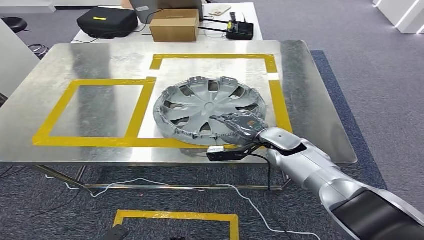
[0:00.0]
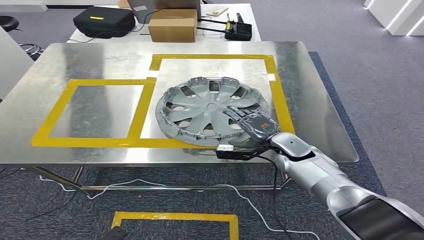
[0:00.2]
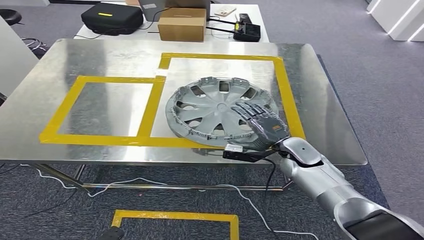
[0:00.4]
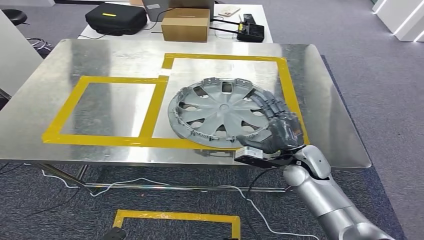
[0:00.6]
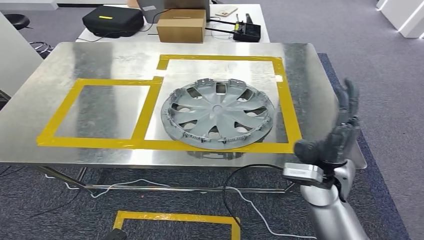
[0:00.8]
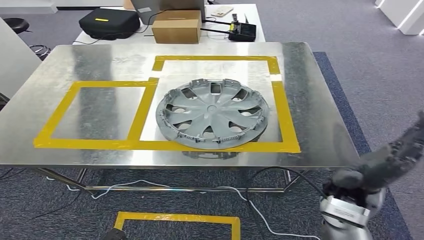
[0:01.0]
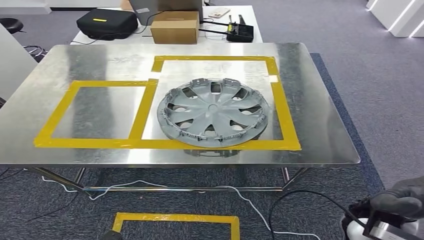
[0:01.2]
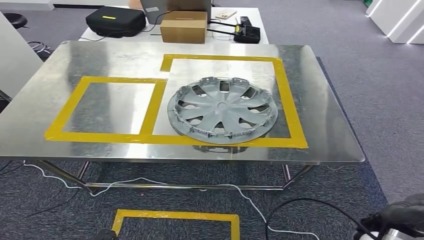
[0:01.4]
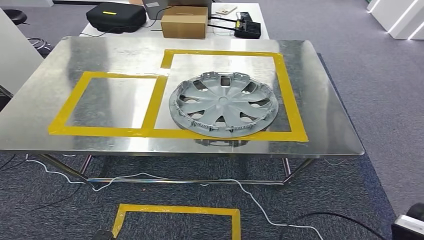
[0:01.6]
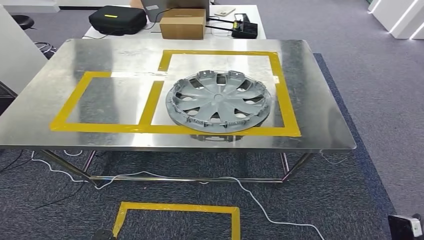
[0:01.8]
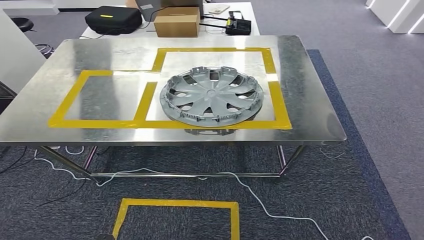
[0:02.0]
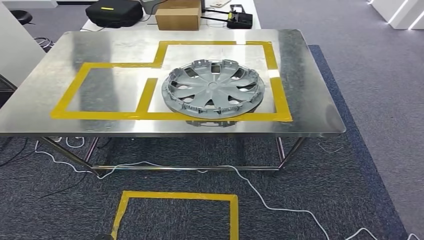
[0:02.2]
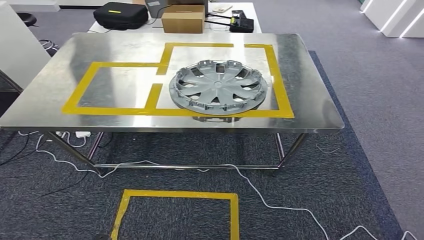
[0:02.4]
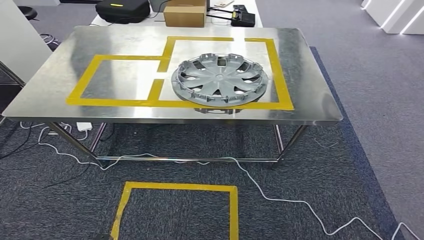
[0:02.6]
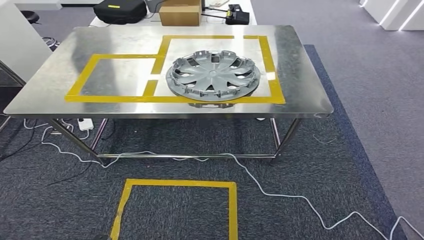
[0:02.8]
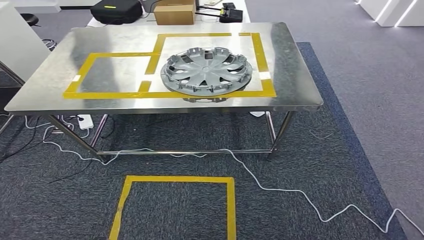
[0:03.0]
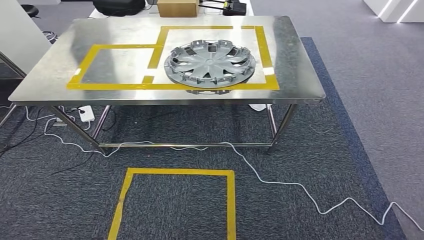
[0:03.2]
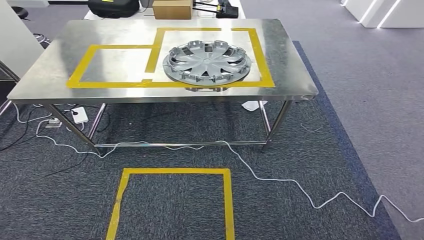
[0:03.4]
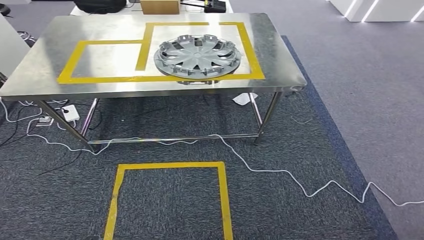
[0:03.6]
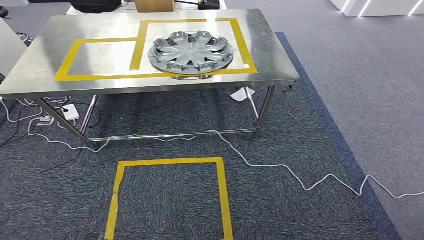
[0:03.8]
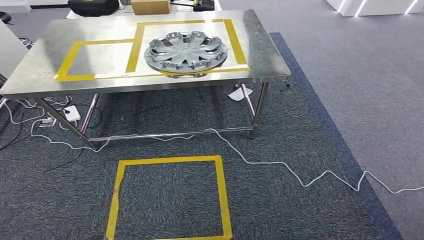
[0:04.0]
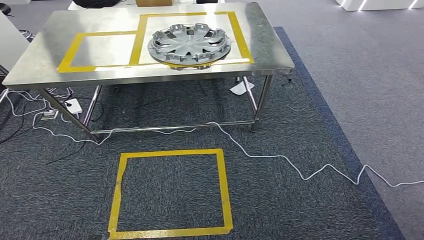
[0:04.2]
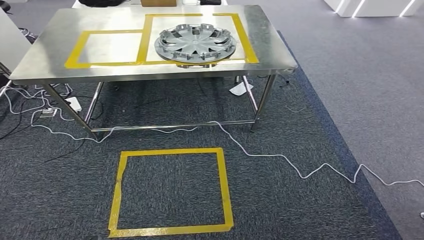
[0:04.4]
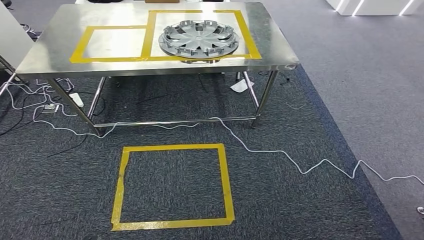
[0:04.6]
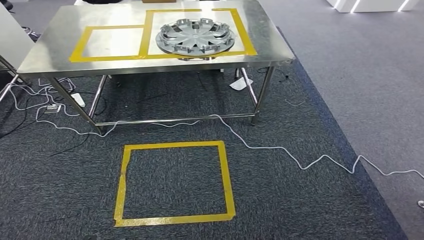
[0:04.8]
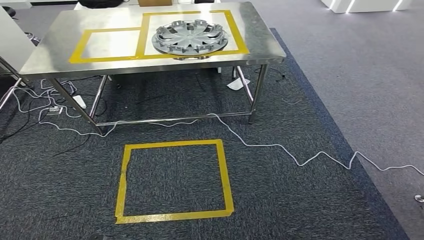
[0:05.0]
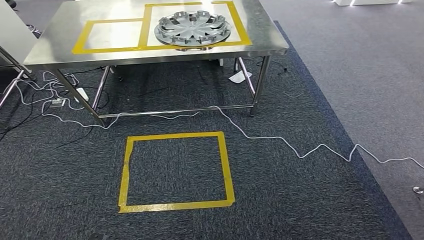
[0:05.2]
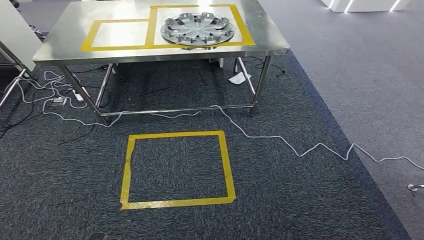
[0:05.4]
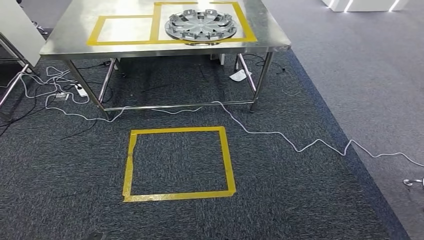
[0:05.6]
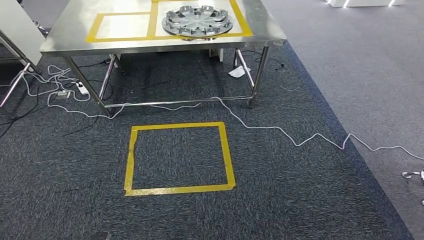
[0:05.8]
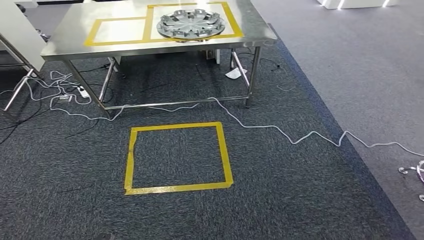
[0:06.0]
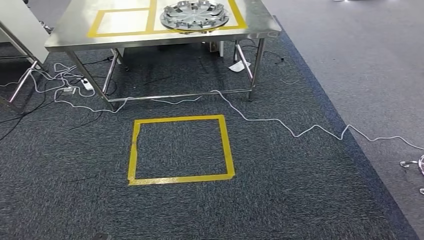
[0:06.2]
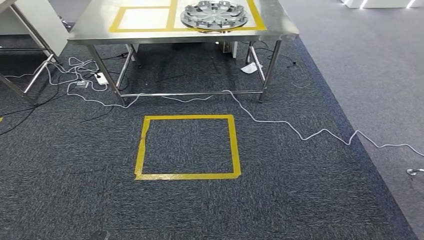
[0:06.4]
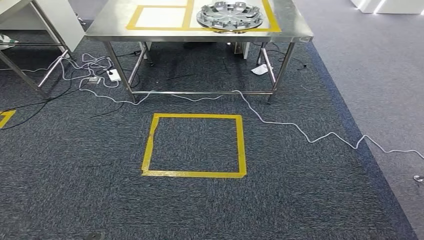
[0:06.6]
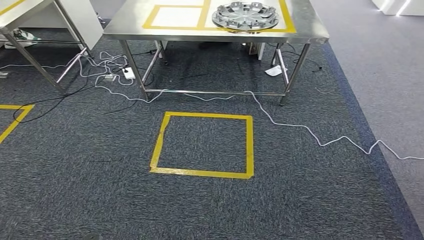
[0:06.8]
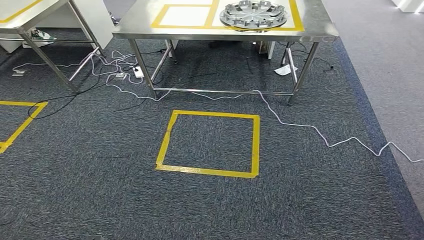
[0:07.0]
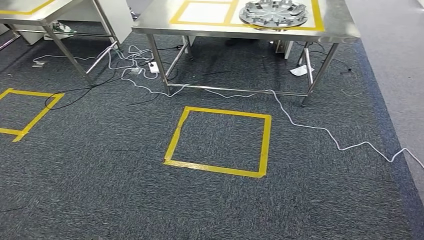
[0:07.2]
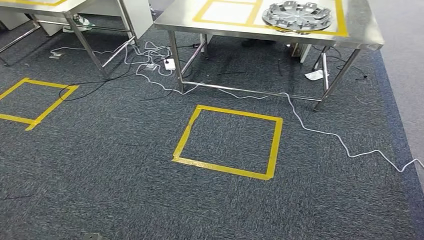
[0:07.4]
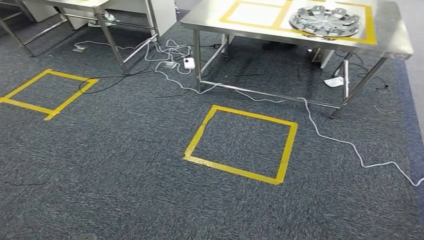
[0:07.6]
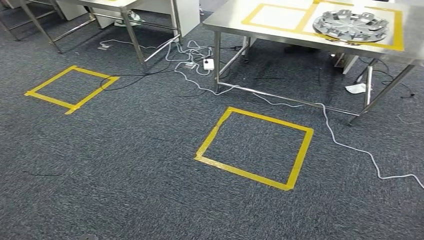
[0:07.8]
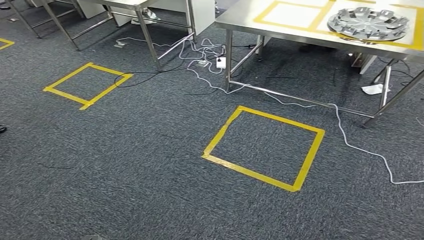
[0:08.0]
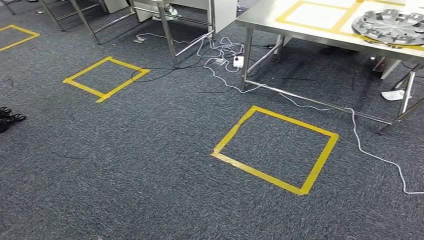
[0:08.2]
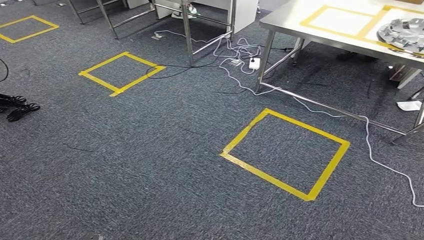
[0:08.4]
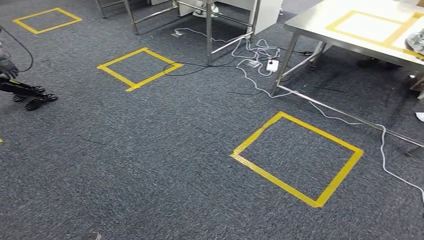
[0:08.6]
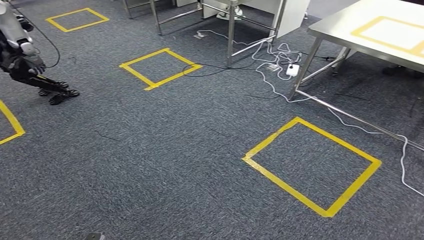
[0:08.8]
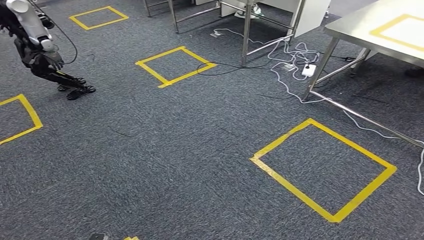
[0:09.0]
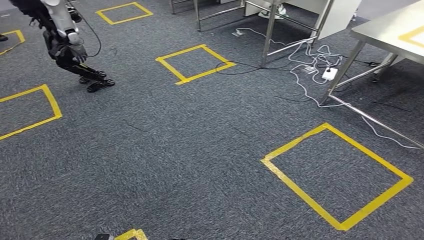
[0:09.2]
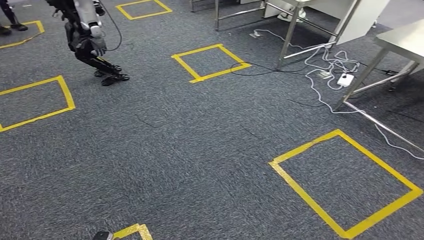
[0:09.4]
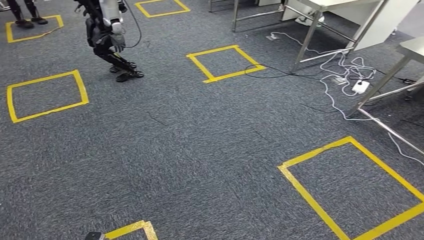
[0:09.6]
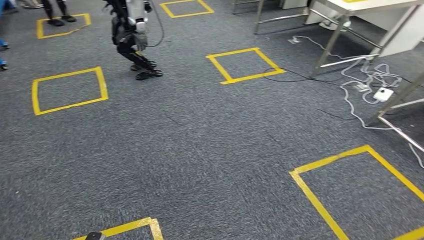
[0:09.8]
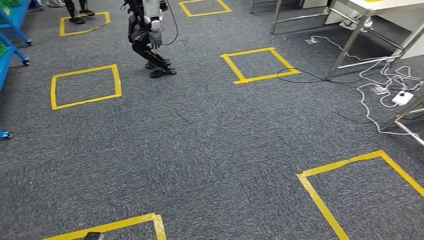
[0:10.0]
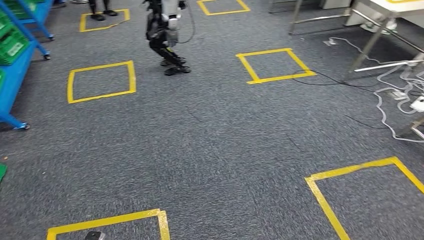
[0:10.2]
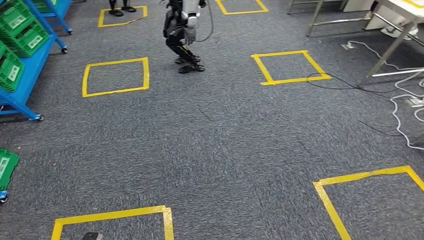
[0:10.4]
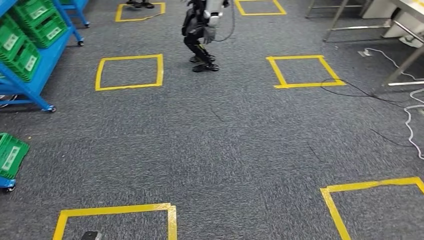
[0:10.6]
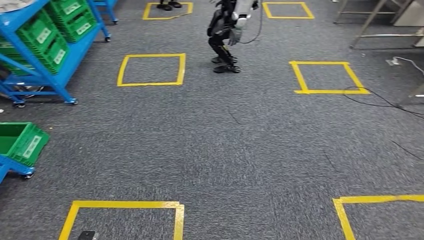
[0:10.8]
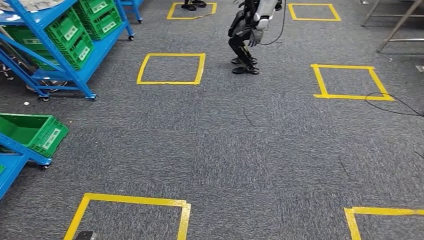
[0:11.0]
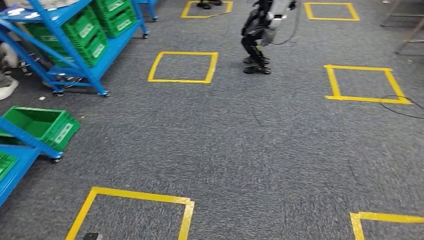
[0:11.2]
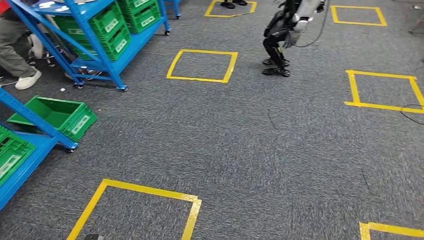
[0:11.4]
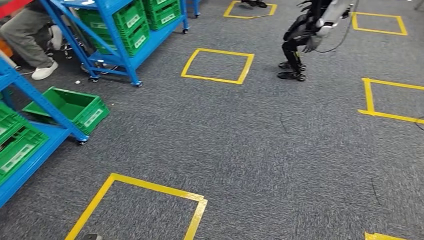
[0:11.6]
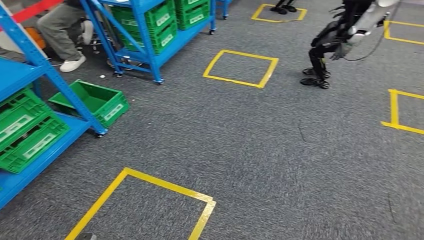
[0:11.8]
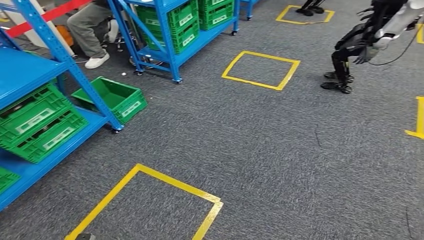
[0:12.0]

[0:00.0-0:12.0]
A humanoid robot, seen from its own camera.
Step, 0:00.0 to 0:07.6: Insert the small parts into the corresponding holes on the workbench.

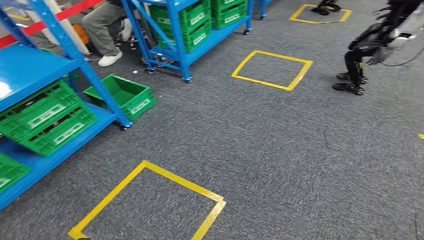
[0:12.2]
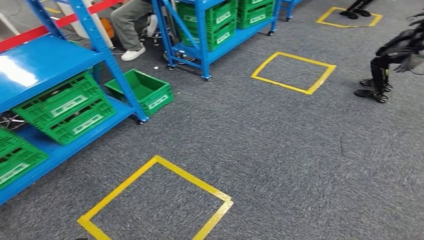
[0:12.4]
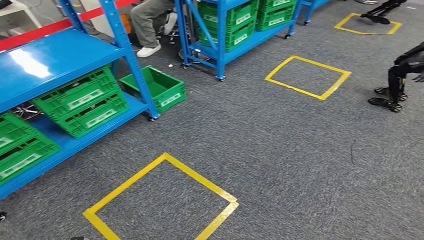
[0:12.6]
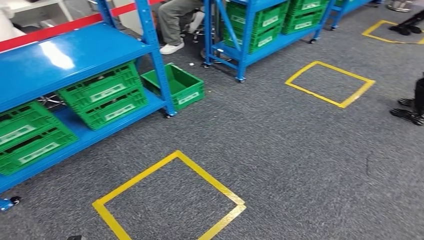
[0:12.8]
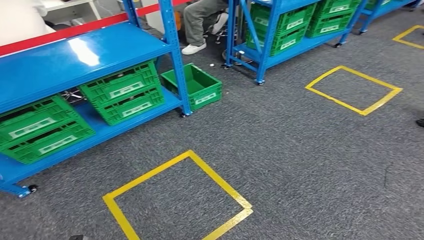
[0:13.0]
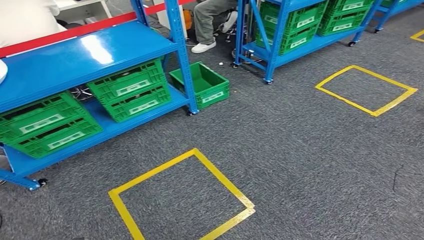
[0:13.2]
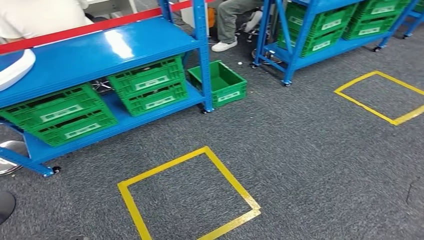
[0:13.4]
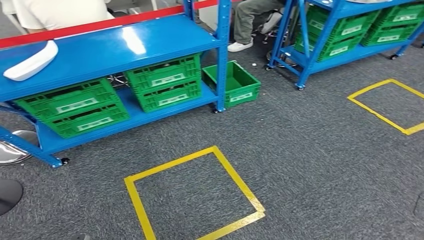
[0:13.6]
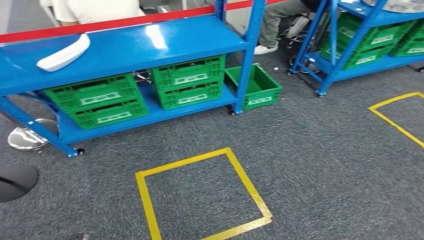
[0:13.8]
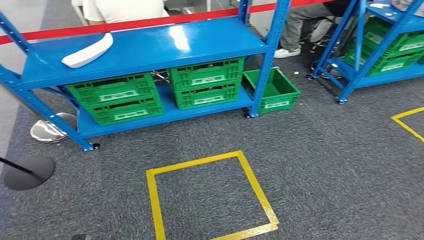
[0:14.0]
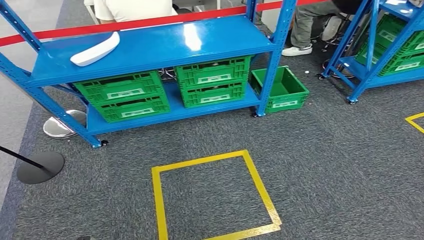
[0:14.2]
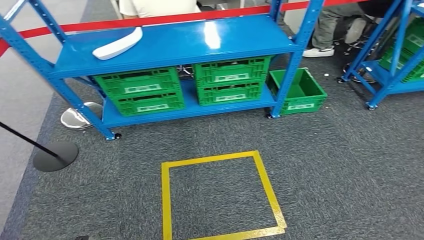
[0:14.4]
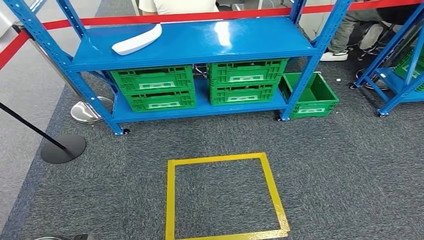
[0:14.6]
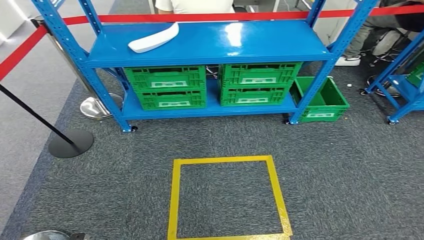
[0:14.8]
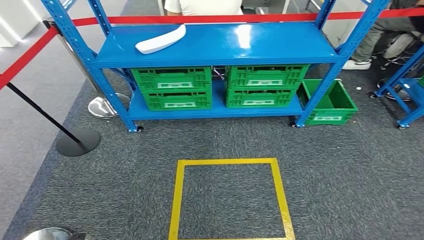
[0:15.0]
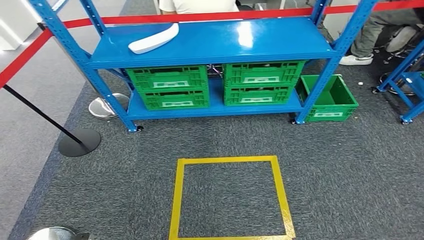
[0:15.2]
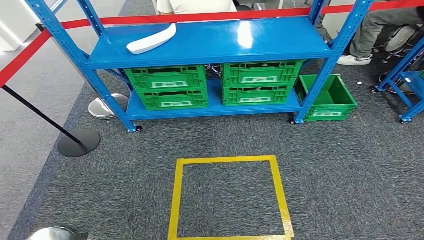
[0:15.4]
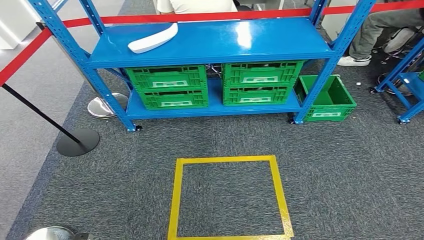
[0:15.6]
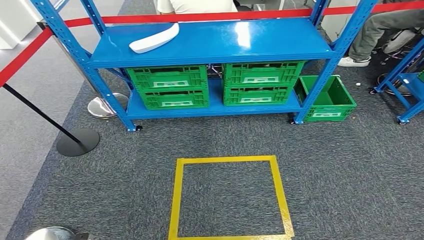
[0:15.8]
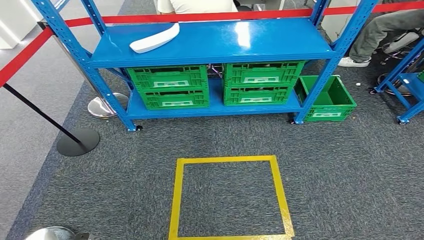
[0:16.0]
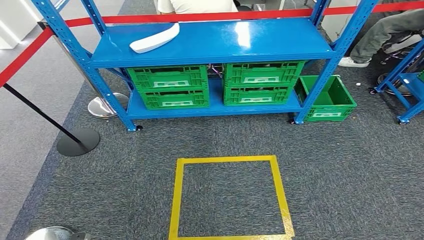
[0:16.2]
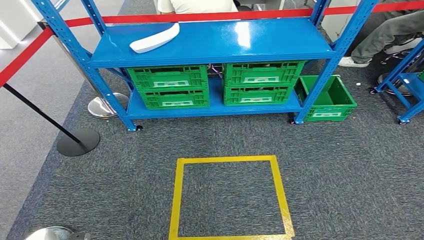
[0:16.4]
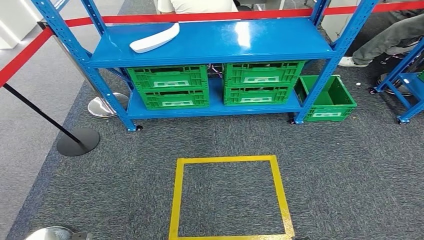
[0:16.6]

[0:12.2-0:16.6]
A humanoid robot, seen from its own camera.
Step, 0:12.2 to 0:16.6: Move to the initial position at the workbench.
